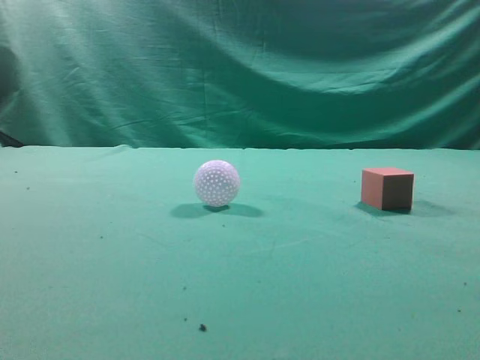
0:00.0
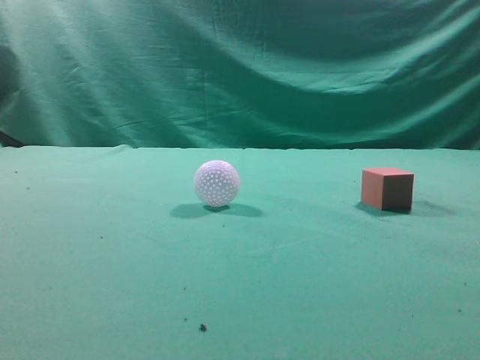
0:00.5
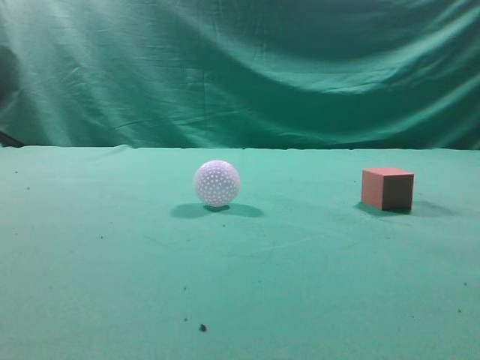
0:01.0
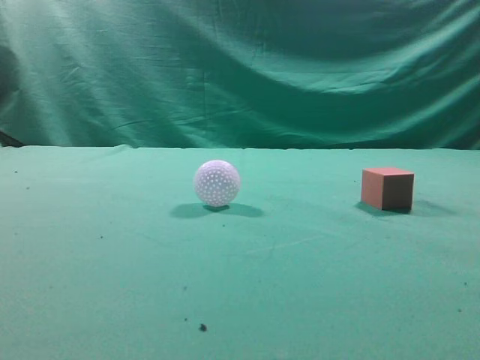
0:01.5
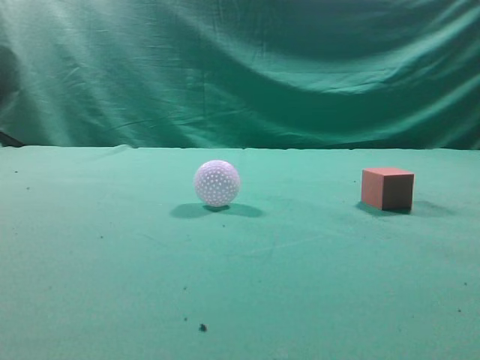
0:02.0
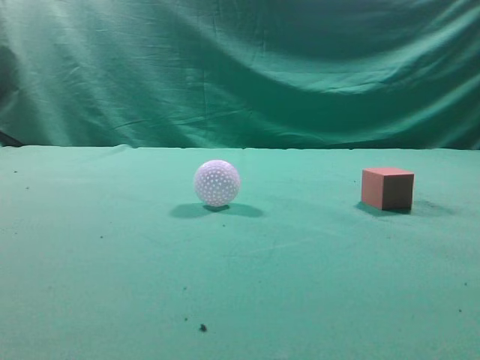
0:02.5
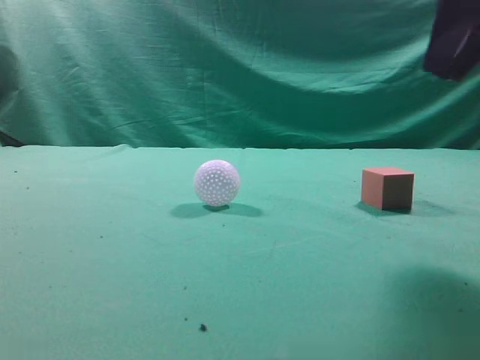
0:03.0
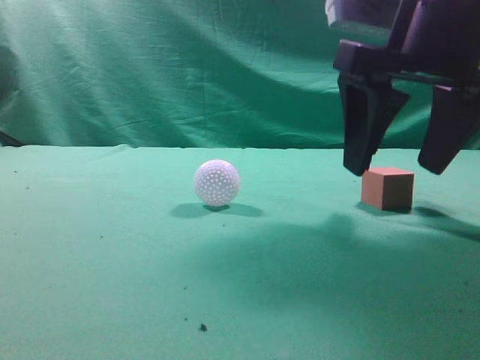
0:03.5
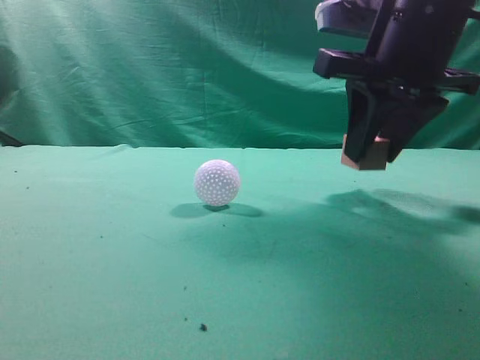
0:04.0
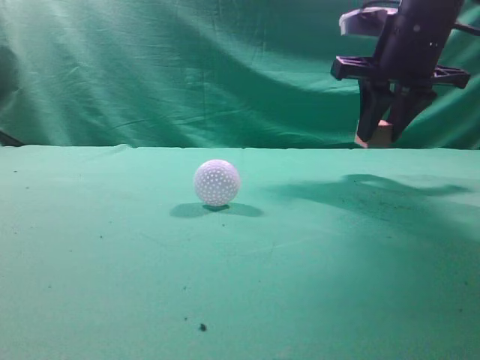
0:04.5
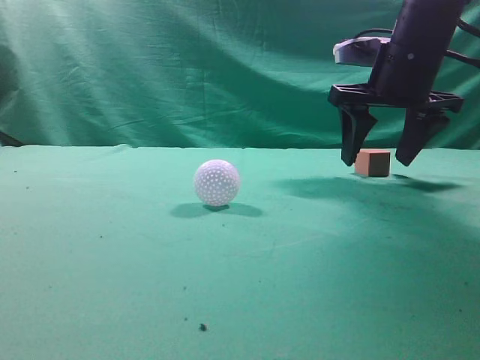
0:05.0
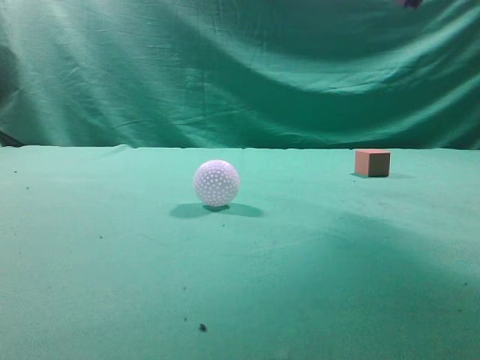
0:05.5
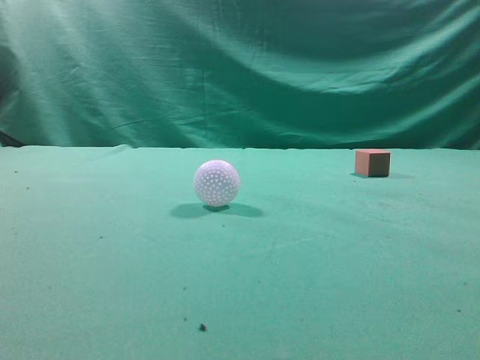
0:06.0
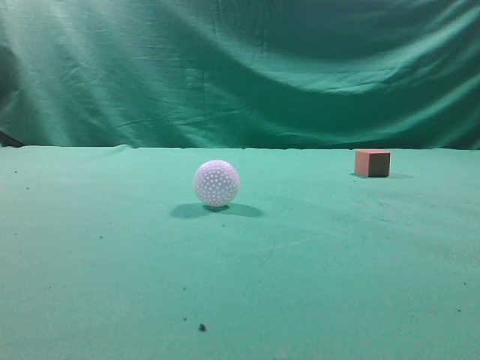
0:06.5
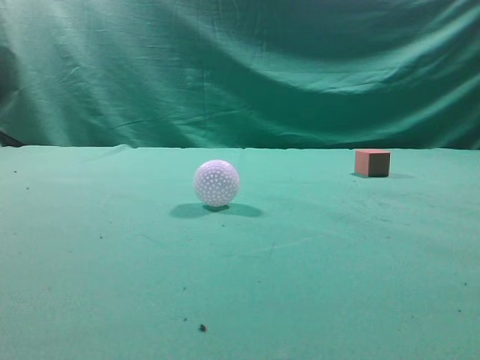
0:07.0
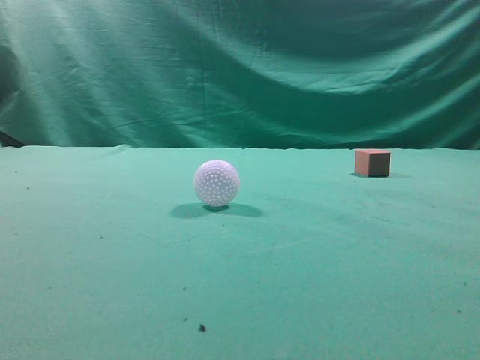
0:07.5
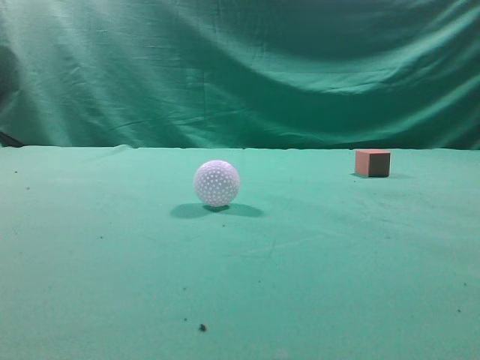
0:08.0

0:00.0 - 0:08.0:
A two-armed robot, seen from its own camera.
Task of the whole recording: pick up the cube block and place it in another position on the table.
Step, 0:00.0 - 0:03.5: Pick up the small cube.
Step, 0:04.0 - 0:05.0: Place the small cube on the ahead of the table.
0:02.0 - 0:04.0: The right gripper goes about 30 cm forward, to the left and downward, and opens up.
0:04.0 - 0:06.0: The right gripper is displaced upward, backward and to the right by some 25 cm, and closes up.

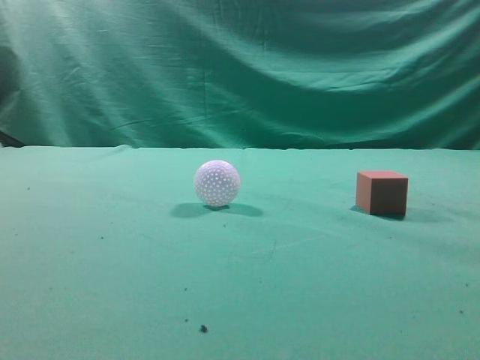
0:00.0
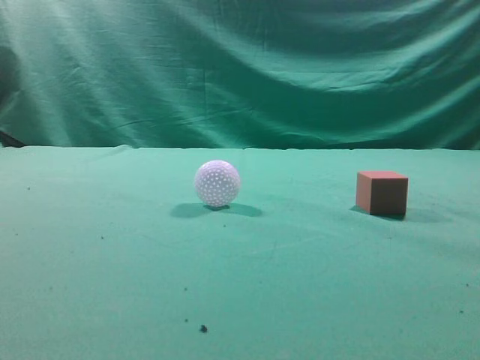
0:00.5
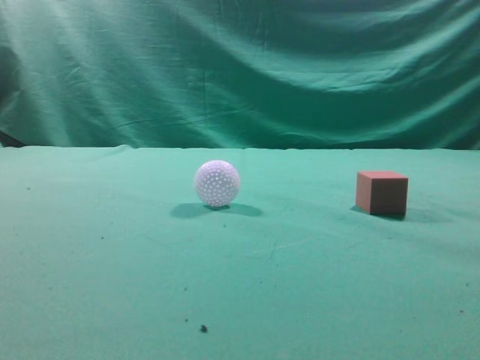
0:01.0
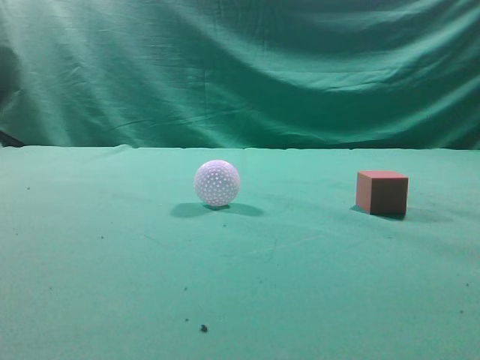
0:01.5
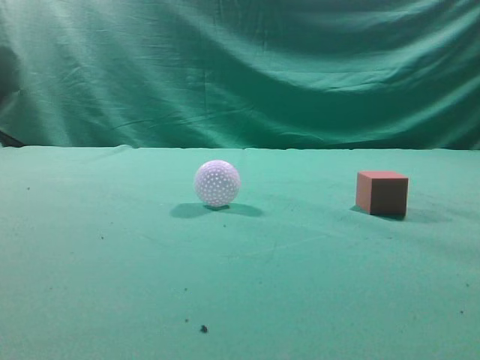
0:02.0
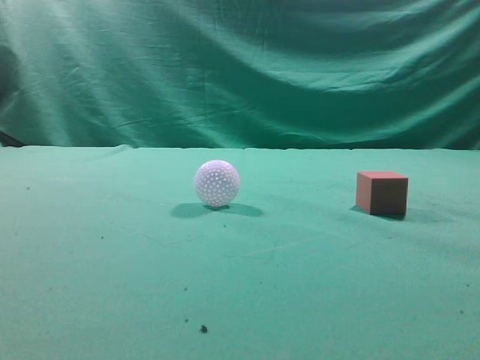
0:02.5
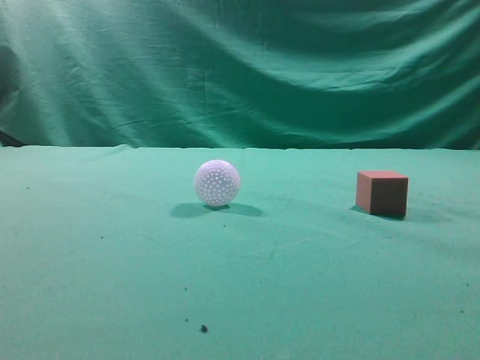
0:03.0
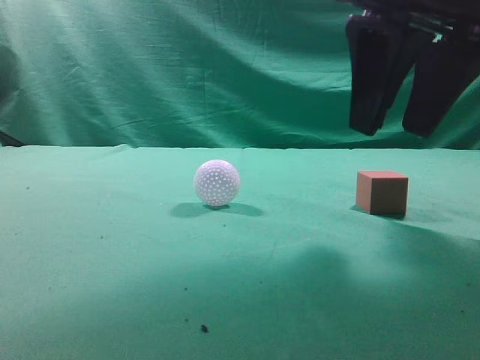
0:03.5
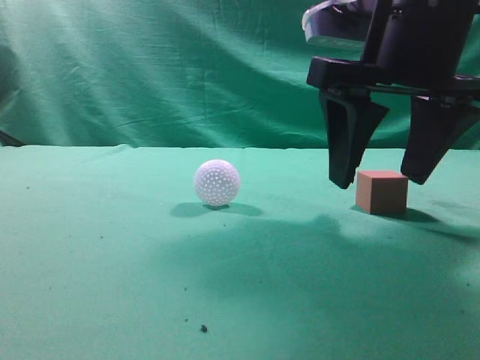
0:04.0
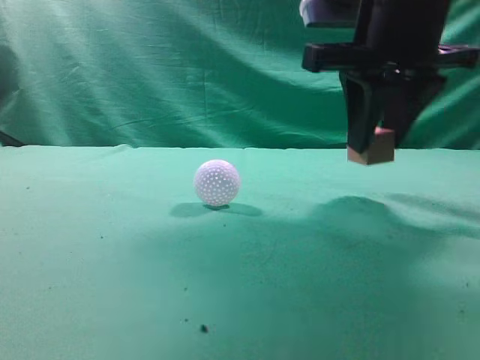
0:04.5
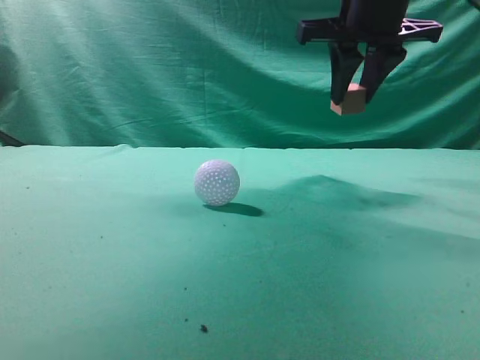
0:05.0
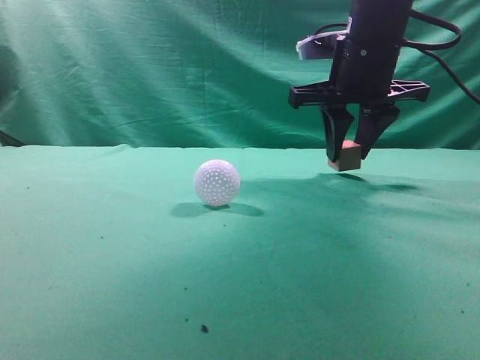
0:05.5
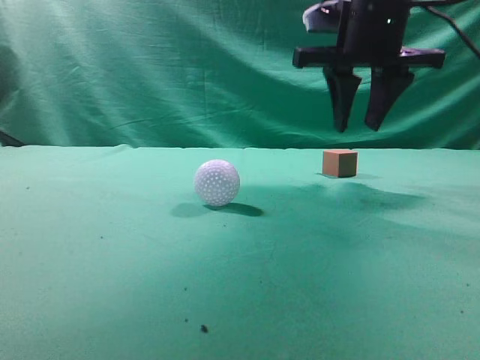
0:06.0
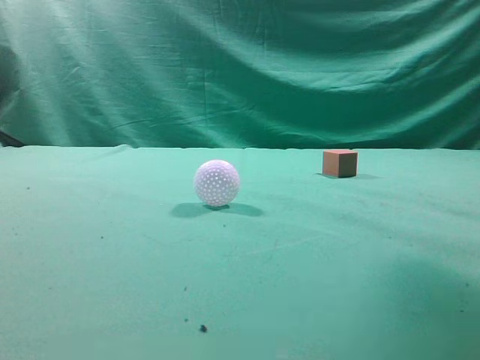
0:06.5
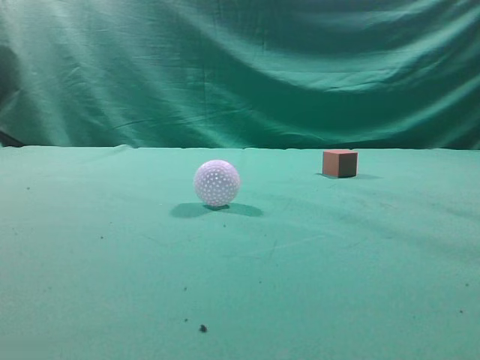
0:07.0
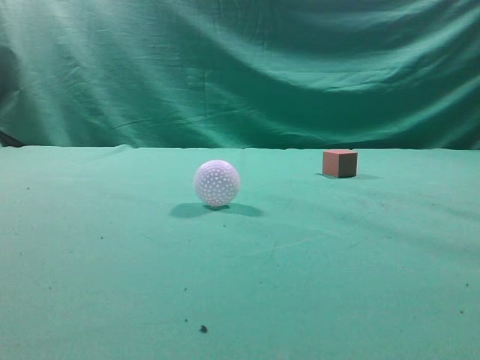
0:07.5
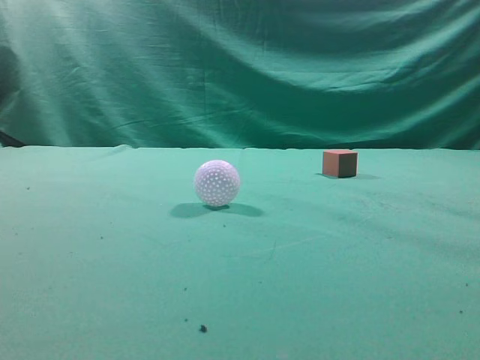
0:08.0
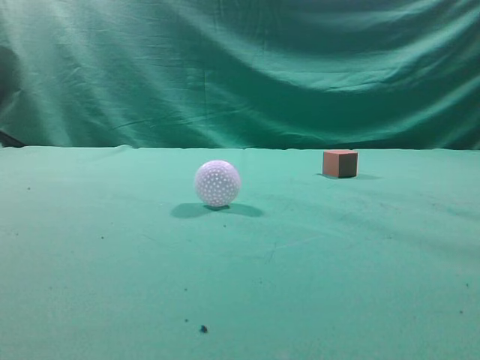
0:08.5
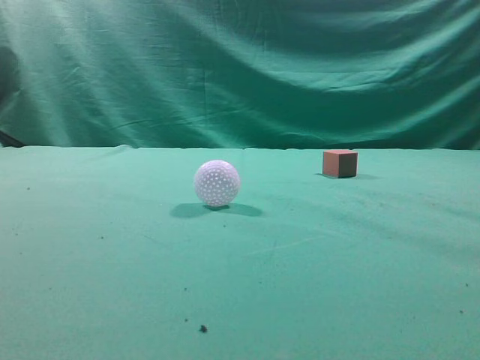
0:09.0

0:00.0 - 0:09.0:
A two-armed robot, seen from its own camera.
Task of the whole recording: pick up the cube block and place it in another position on the table.
Step, 0:00.0 - 0:04.0: Pick up the small cube.
Step, 0:04.5 - 0:05.5: Place the small cube on the ahead of the table.
0:02.0 - 0:04.5: The right gripper goes roughly 30 cm forward and to the left, and opens up.
0:04.5 - 0:07.0: The right gripper heads backward, upward and to the right, covering roughly 25 cm, and closes up.
